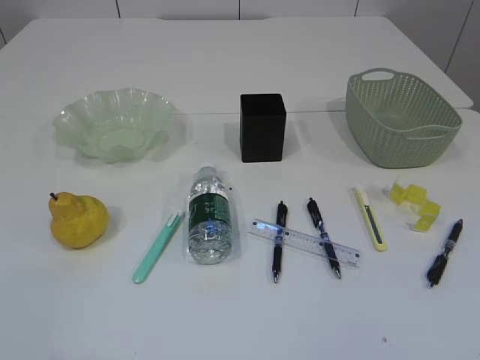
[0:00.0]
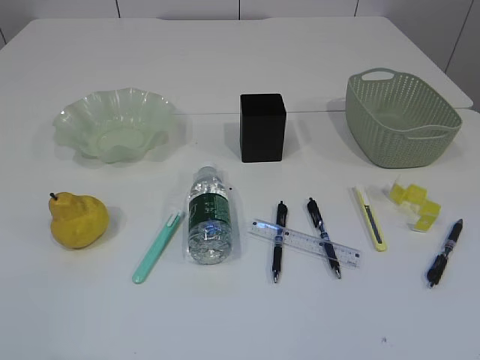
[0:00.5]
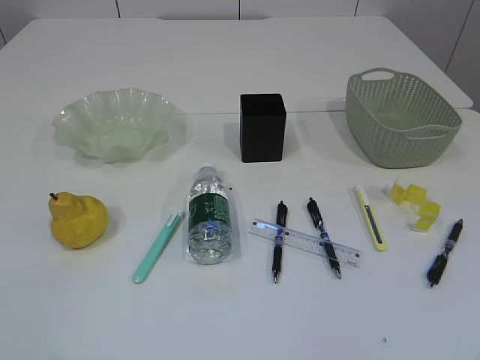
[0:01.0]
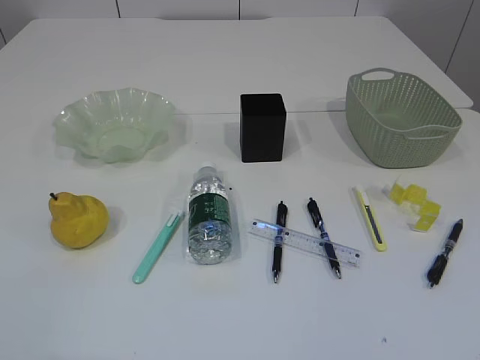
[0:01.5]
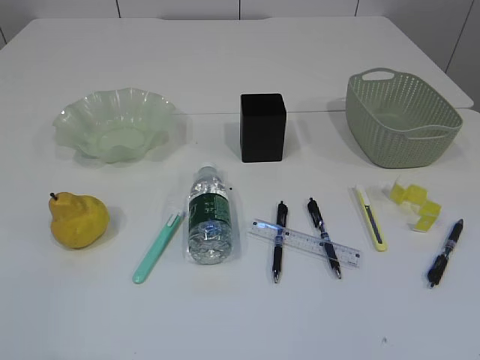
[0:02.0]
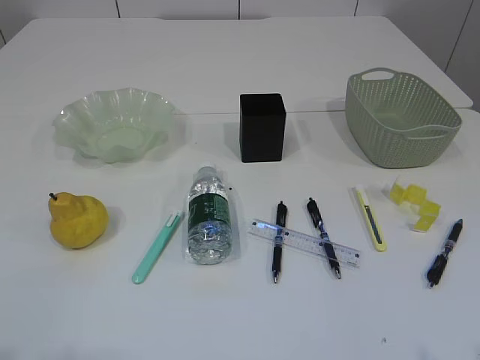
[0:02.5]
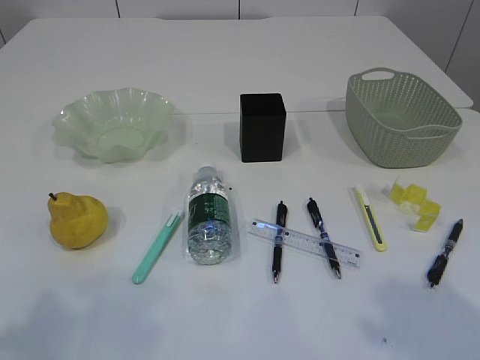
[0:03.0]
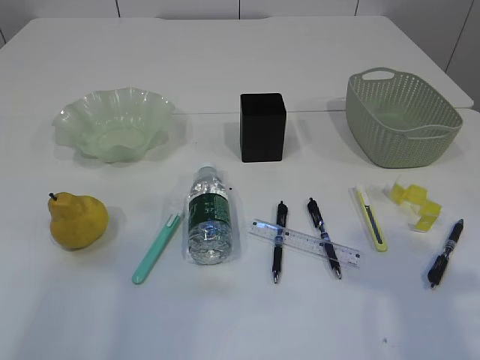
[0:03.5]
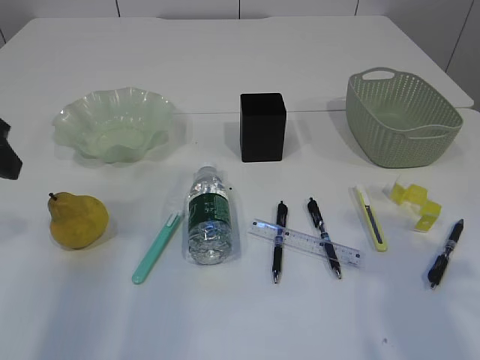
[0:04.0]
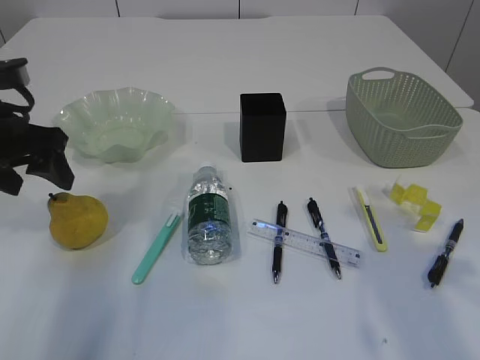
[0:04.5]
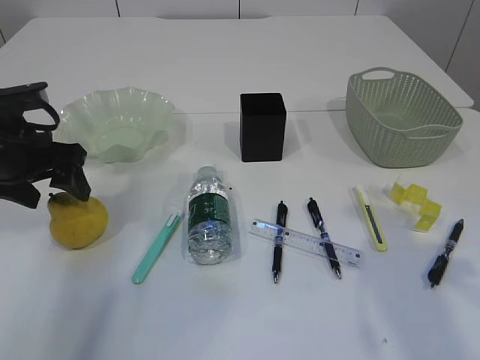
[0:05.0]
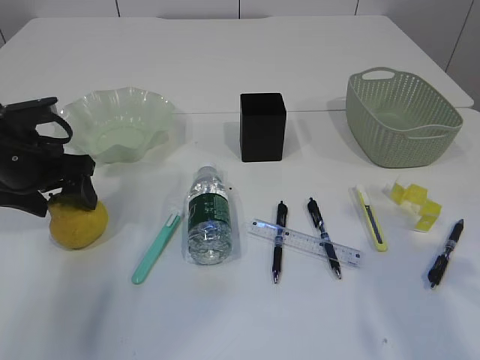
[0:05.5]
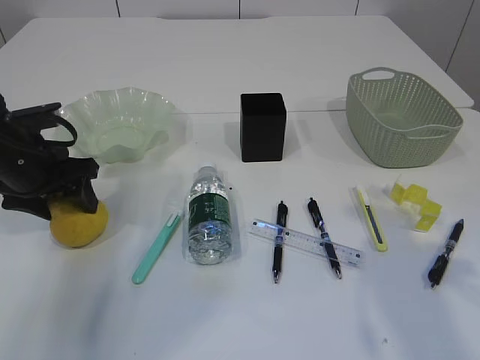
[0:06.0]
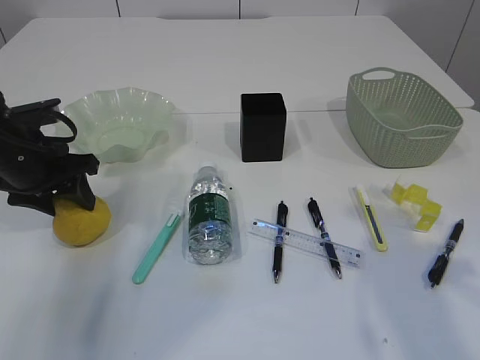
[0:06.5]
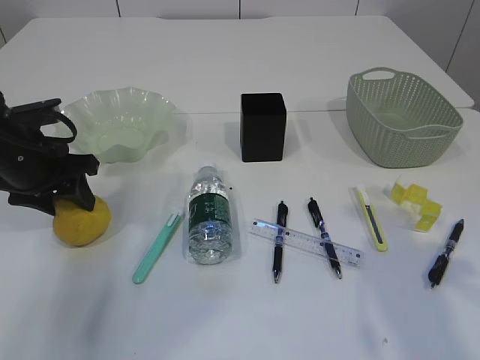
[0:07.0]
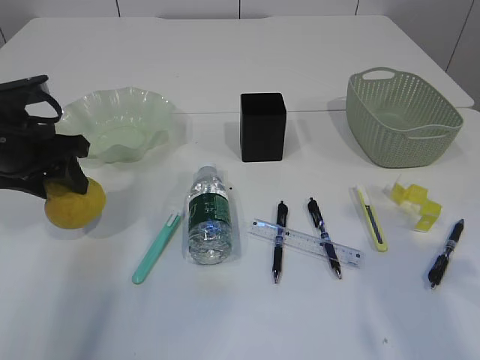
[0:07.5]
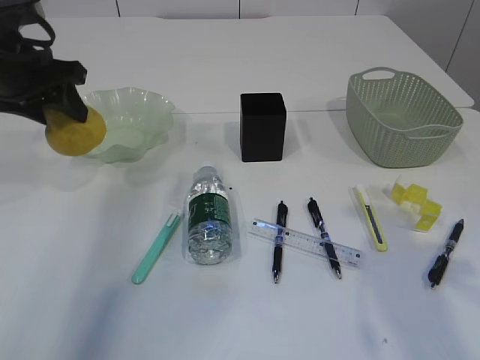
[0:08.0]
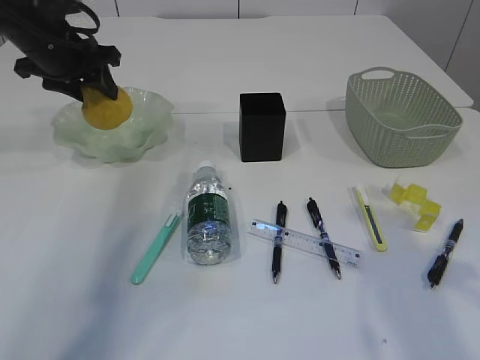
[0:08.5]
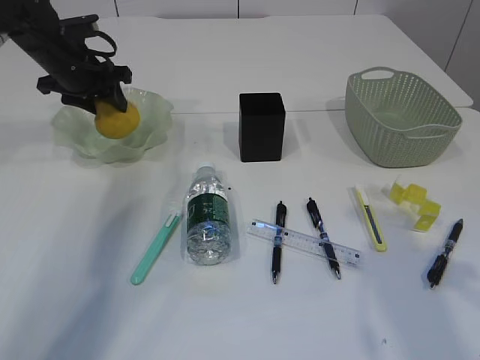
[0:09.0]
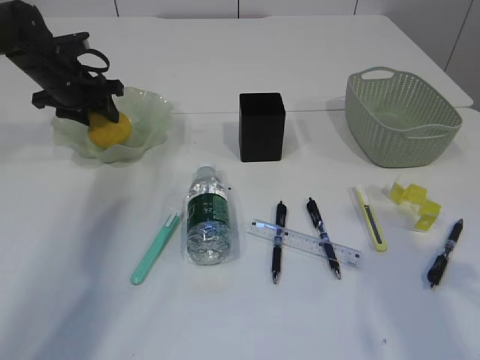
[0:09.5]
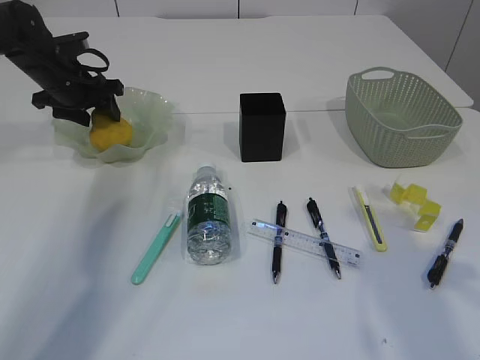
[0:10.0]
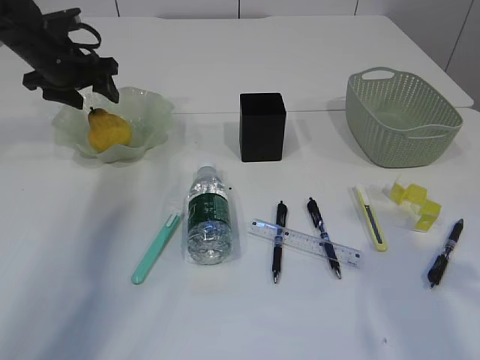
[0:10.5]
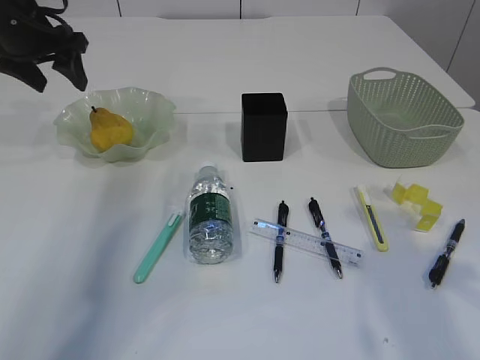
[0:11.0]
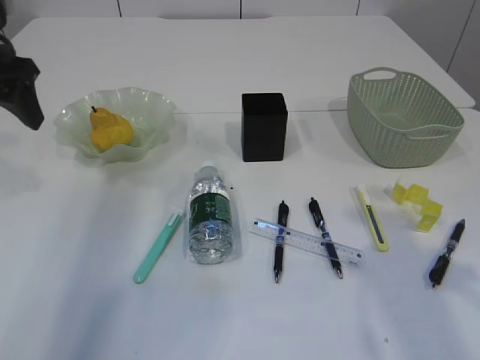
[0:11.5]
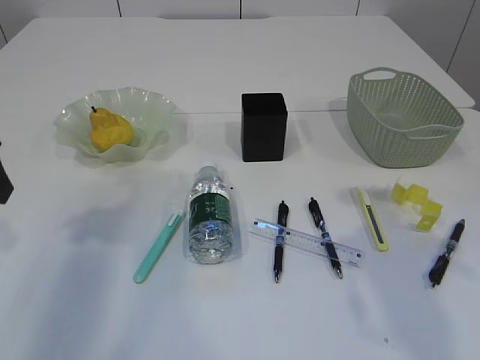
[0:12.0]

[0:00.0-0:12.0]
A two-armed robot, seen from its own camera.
Step, 0:07.5 to 0:10.5: Place the pear in the plate.
0:02.0 to 0:04.0: Both grippers move forward, approximately 25 cm.
0:04.0 to 0:06.0: The left gripper moves downward and forward, about 15 cm.
0:06.0 to 0:08.0: The left gripper heads upward, covering roughly 10 cm.
0:08.0 to 0:10.0: The left gripper is displaced forward and downward by roughly 15 cm.
0:10.0 to 0:12.0: The left gripper is displaced backward by about 25 cm.

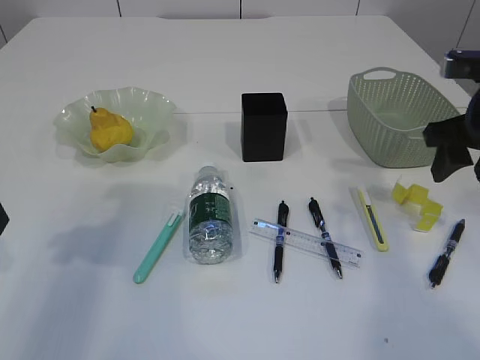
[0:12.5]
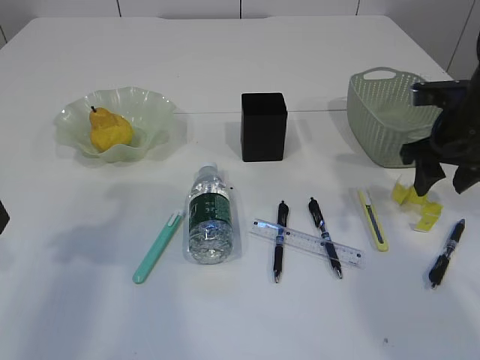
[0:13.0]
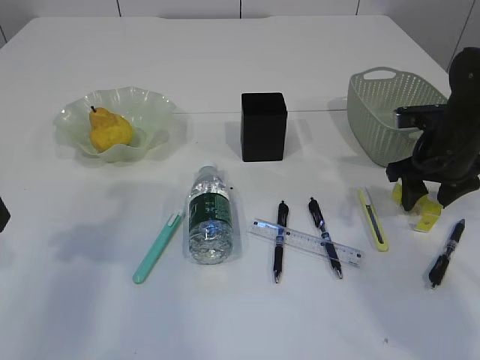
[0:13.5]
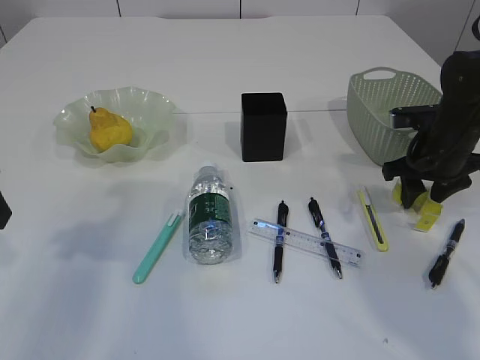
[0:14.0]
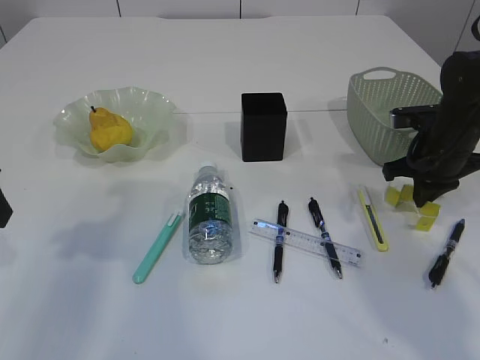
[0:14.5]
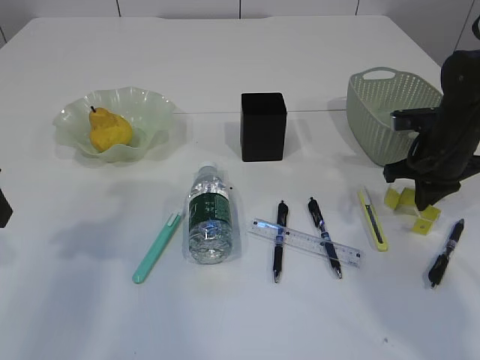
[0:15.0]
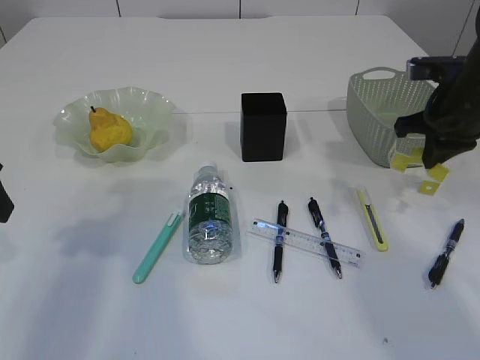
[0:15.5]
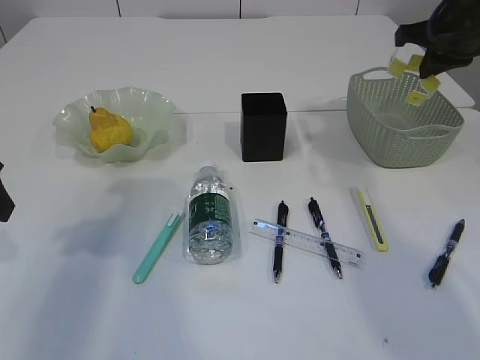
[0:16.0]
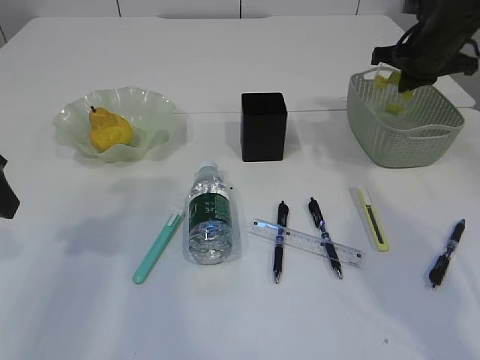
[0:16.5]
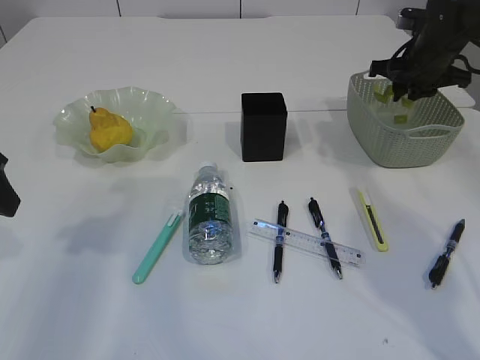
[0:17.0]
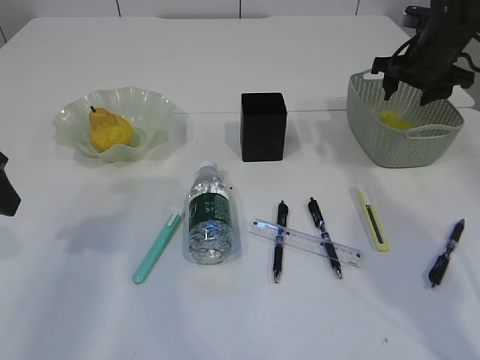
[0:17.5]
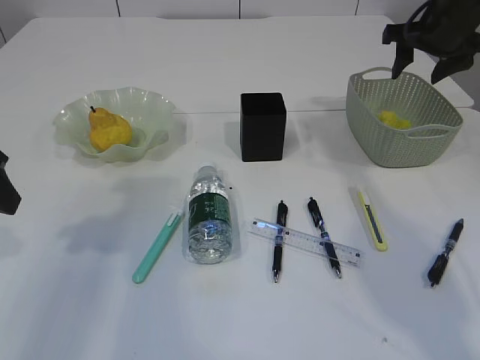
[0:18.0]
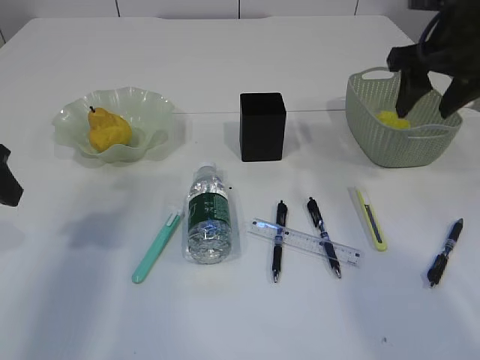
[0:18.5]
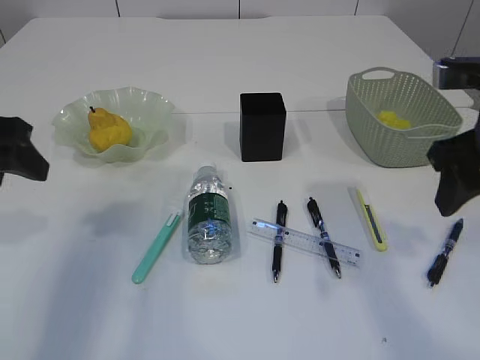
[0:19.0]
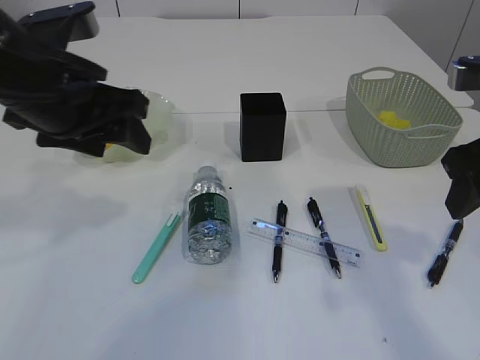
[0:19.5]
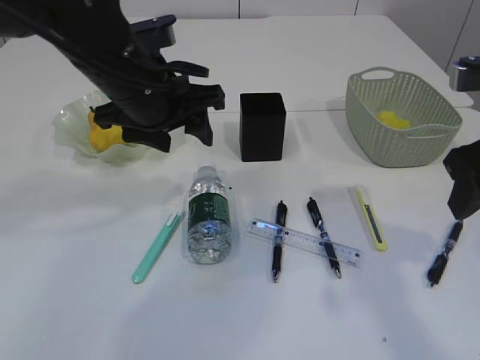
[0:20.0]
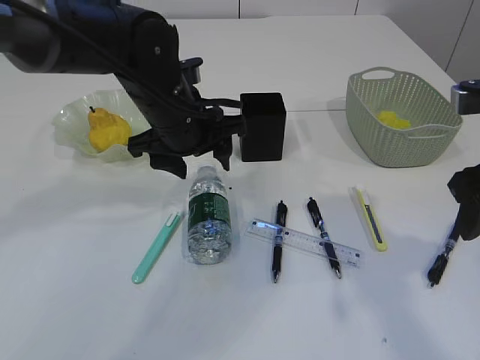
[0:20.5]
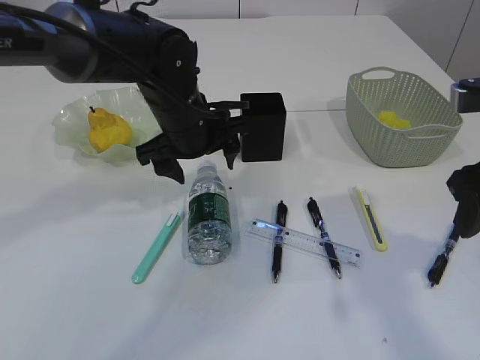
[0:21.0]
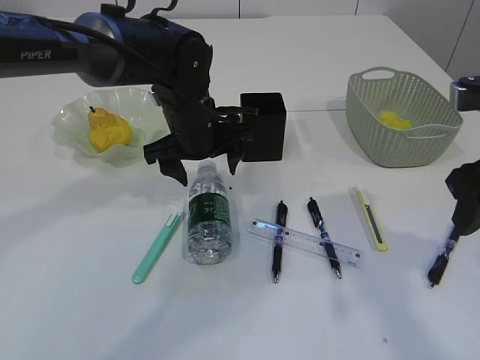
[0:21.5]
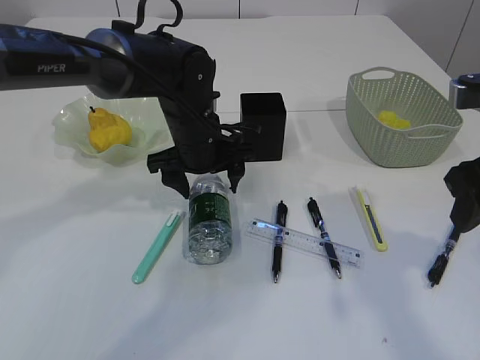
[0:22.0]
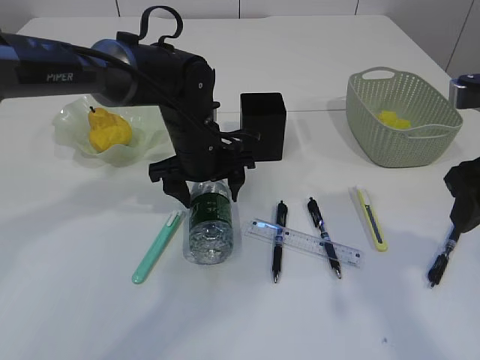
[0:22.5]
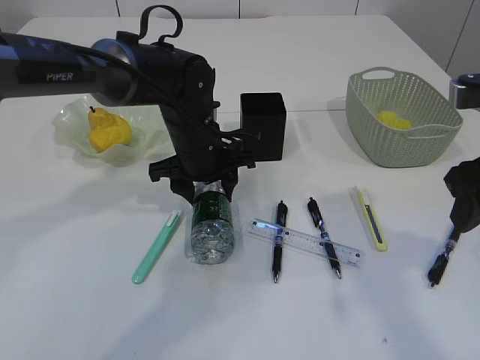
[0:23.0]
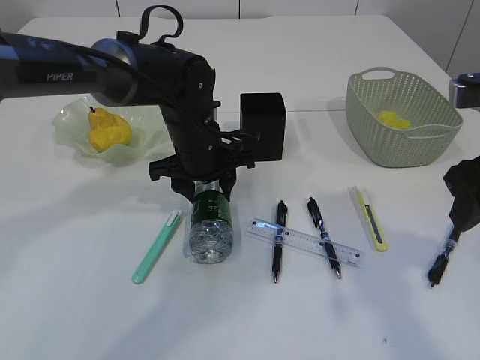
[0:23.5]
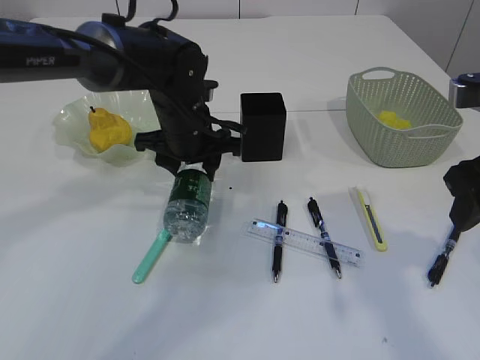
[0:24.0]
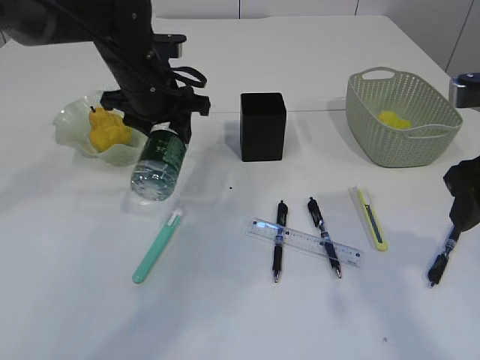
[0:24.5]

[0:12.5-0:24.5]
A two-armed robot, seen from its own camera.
Step, 0:12.5 to 0:15.0: Pick up the waste paper.
Step, 0:15.5 to 0:17.5: Place the waste paper in the basket.
Step, 0:18.0 to 0:23.5: Pick up the bottle with the left arm.
0:12.5 to 0:14.5: The right gripper is displaced downward and forward by about 15 cm, and closes.
0:14.5 to 0:16.5: The right gripper heads forward and upward, covering roughly 15 cm.
0:16.5 to 0:18.5: The right gripper is displaced backward and upward by approximately 15 cm, and opens its fingers.
0:18.5 to 0:20.5: The left gripper heads to the right and forward, covering about 25 cm. Meanwhile the right gripper moves backward, approximately 15 cm.
0:20.5 to 0:22.5: The left gripper travels downward by some 5 cm.
0:22.5 to 0:24.5: The left gripper shifts some 10 cm upward and to the left, and closes its fingers.

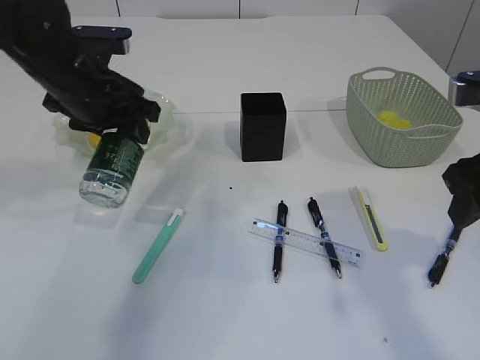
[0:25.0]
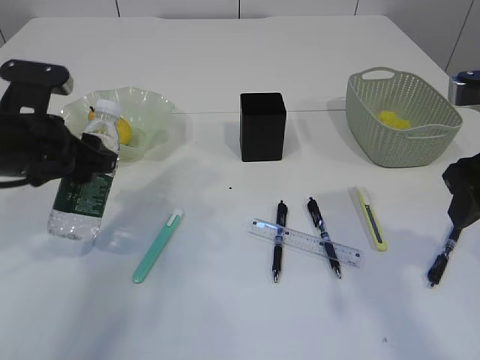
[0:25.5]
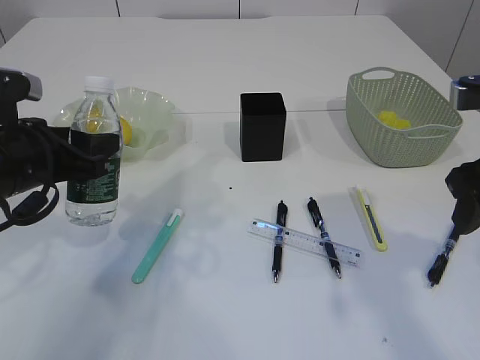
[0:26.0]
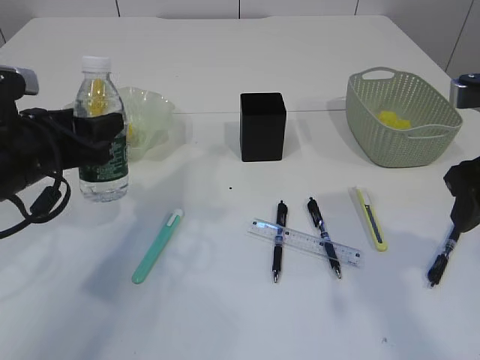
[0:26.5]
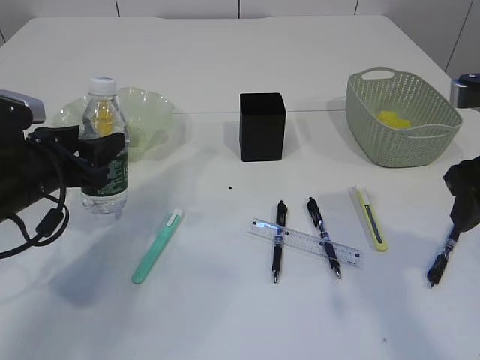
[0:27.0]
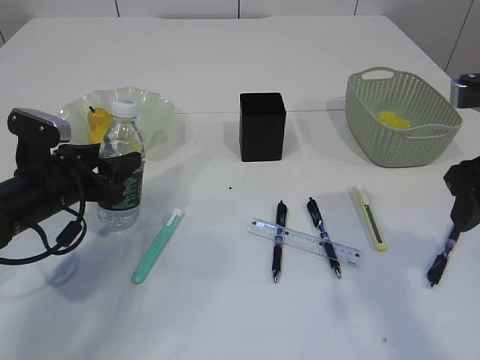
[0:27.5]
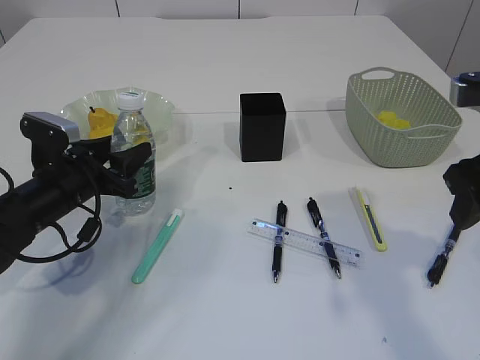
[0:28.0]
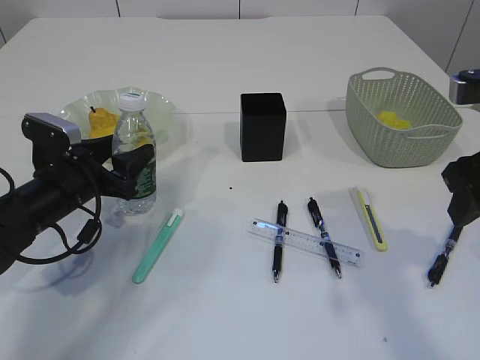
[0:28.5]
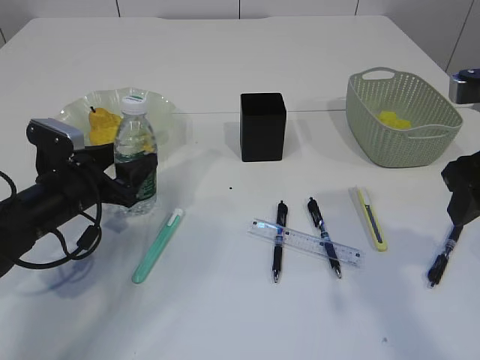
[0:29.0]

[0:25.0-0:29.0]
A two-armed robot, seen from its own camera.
0:25.0 to 0:27.0: The left gripper shifts roughly 15 cm downward, backward and to the left.
0:27.0 to 0:29.0: The left gripper goes roughly 5 cm downward.
